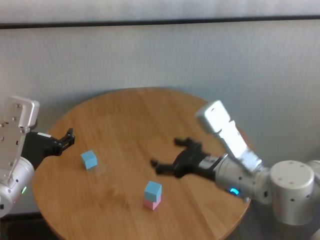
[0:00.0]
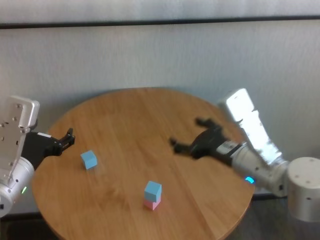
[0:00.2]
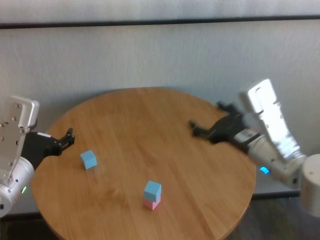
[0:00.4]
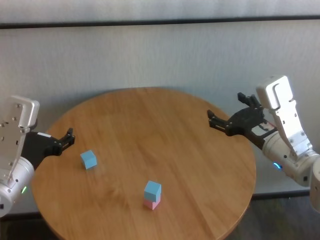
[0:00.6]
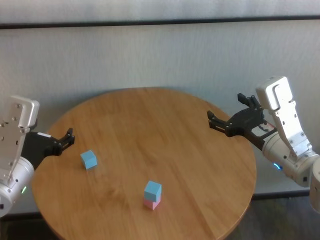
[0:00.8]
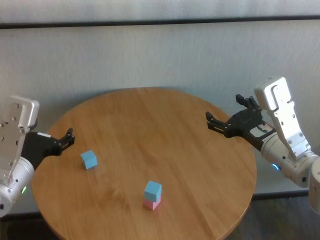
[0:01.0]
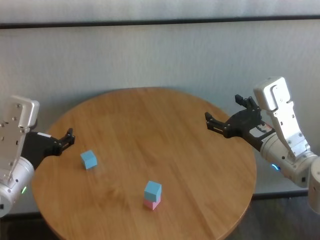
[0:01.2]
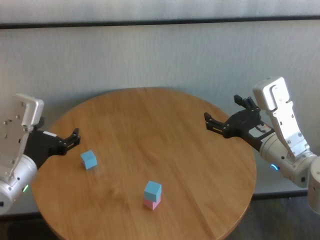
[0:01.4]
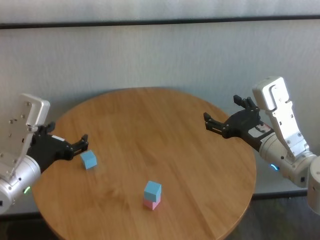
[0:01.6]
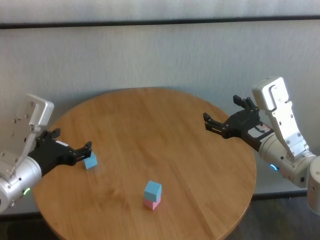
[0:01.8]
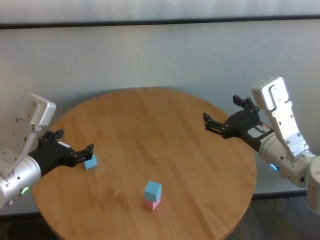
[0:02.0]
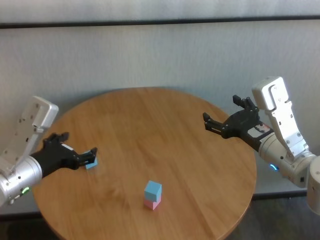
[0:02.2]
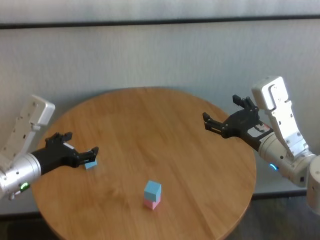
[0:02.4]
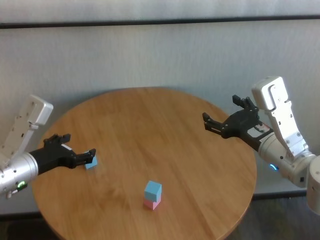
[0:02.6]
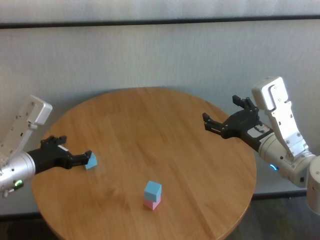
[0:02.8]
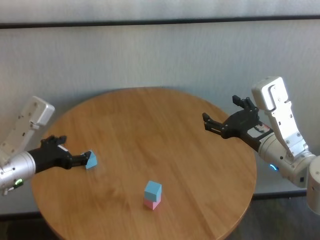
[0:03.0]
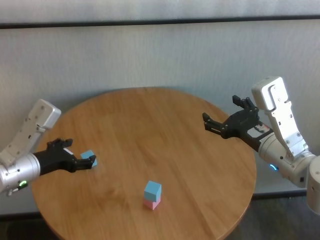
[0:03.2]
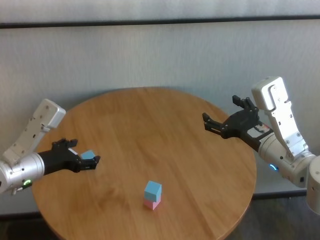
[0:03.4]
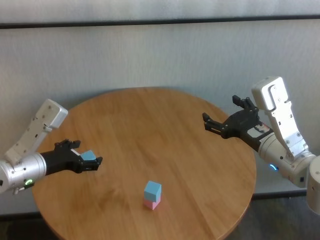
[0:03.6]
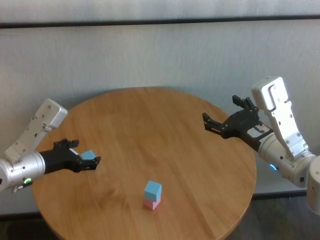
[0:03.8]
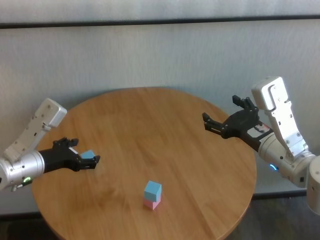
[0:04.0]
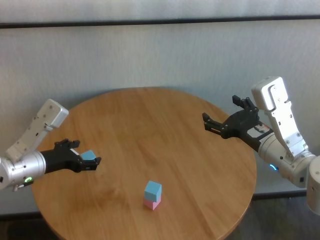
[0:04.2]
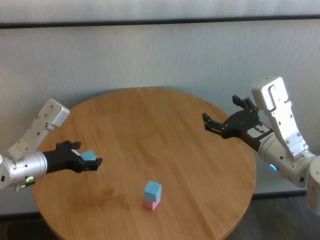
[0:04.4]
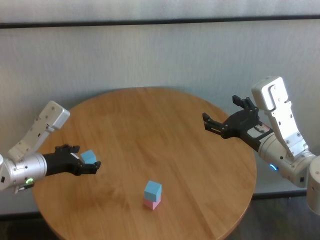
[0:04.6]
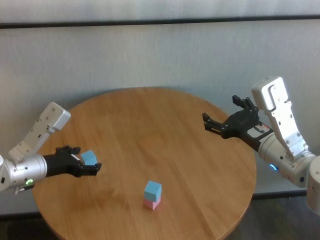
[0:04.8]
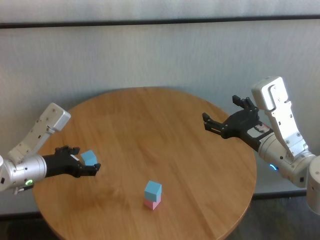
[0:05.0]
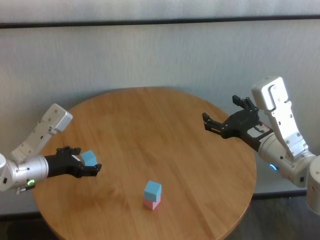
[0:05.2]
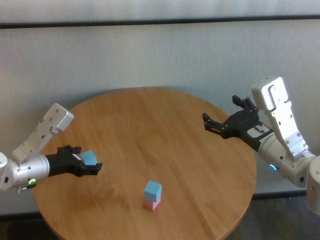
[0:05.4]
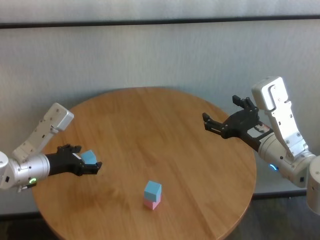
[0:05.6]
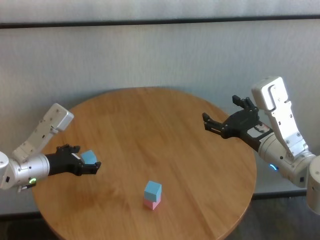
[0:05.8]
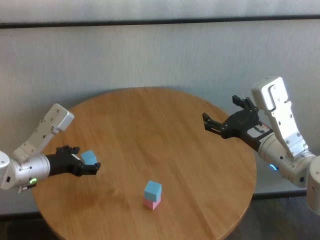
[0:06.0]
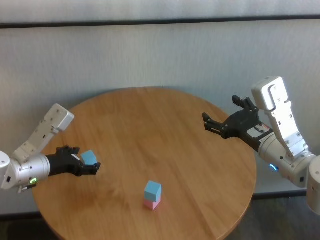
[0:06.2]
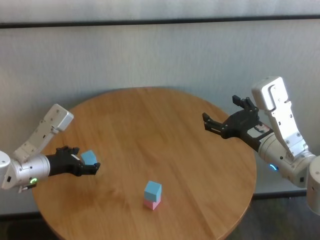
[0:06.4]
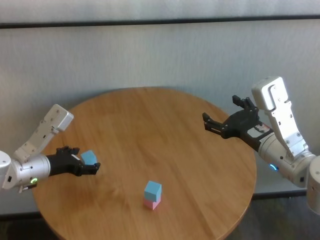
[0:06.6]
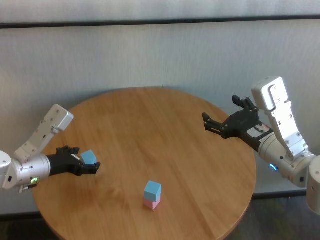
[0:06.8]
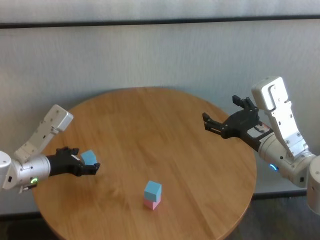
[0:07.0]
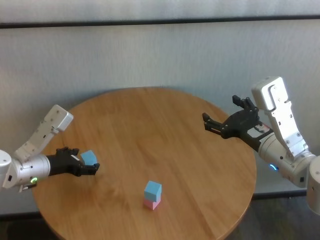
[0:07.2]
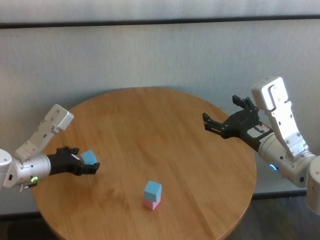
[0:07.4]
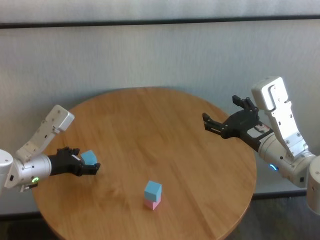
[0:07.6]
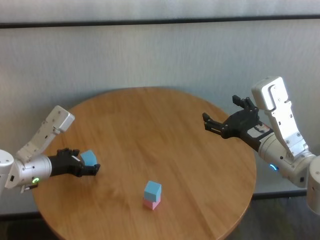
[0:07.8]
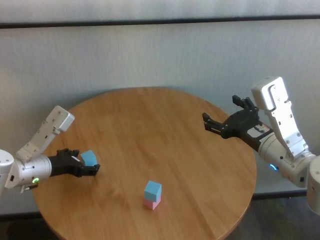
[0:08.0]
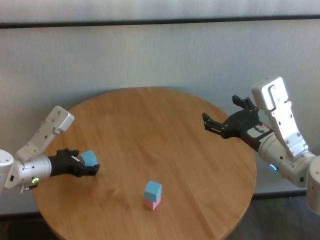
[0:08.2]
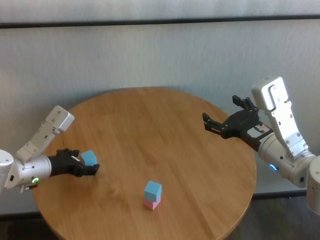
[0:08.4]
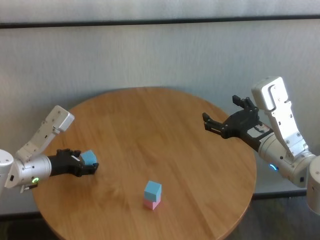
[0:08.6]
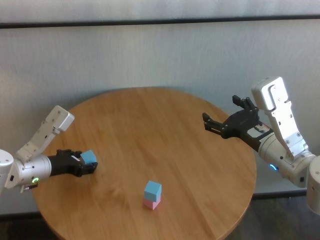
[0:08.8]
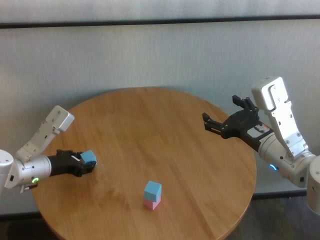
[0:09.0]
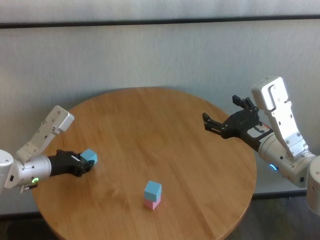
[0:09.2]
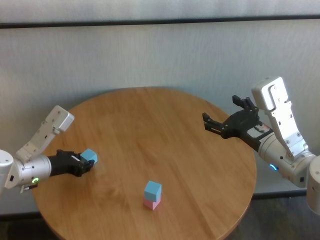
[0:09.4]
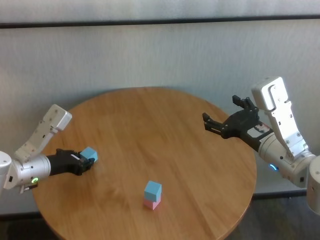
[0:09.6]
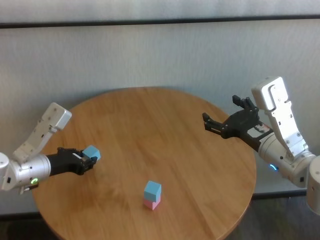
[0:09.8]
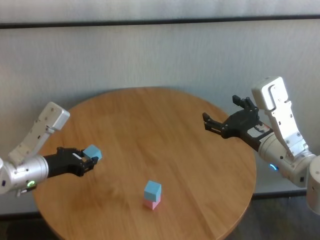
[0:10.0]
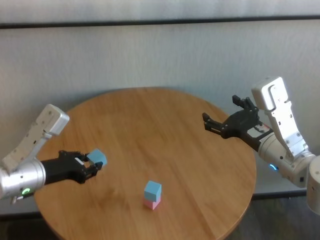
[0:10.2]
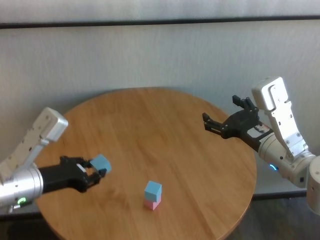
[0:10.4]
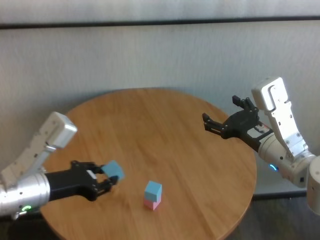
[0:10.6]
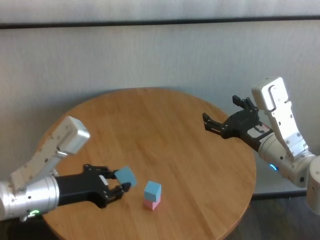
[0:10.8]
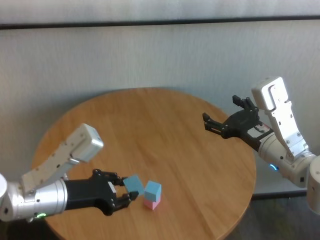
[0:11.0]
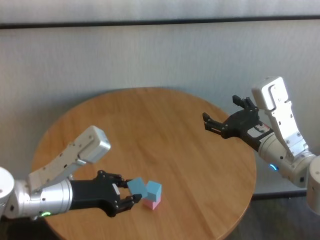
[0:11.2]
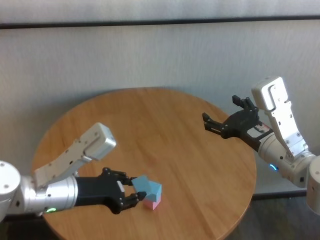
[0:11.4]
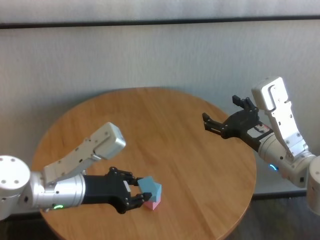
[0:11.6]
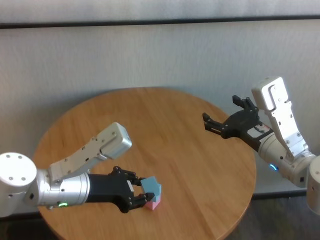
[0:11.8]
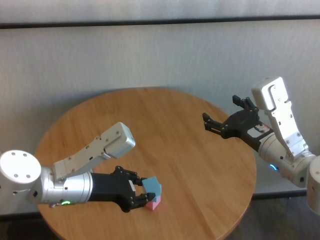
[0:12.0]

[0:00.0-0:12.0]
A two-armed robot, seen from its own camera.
Task of the whole recording: stack building blocks on the table.
Step, 0:00.0 to 0:09.0: Grasp the blue building block with left gripper.

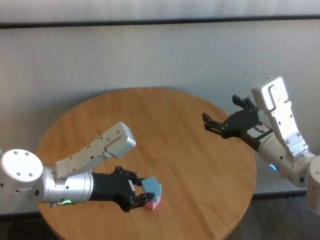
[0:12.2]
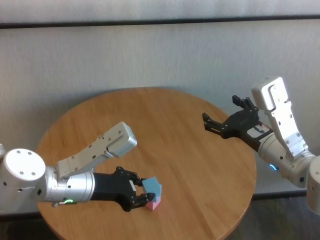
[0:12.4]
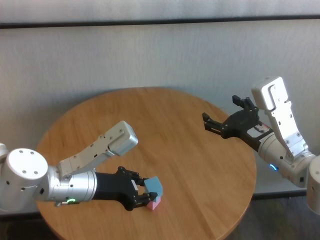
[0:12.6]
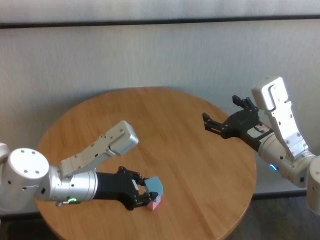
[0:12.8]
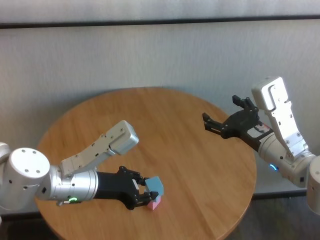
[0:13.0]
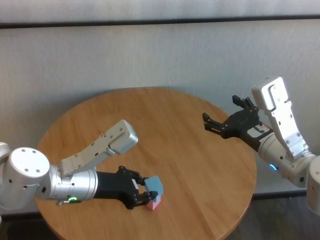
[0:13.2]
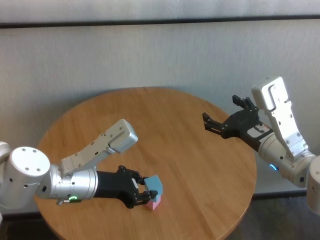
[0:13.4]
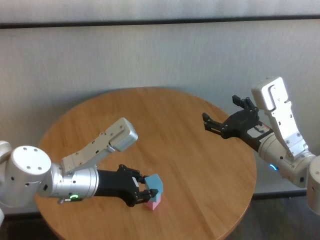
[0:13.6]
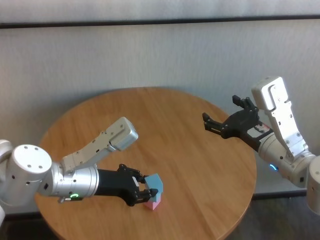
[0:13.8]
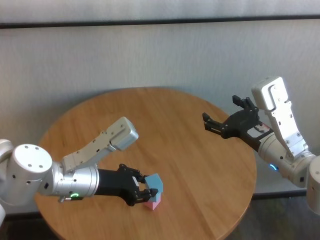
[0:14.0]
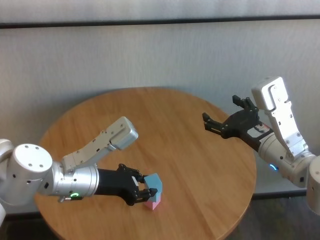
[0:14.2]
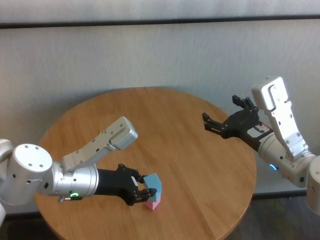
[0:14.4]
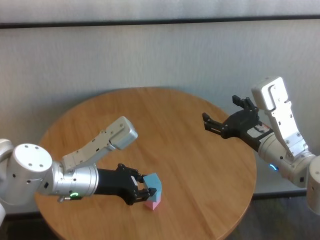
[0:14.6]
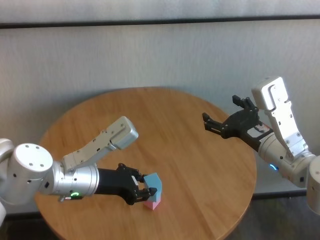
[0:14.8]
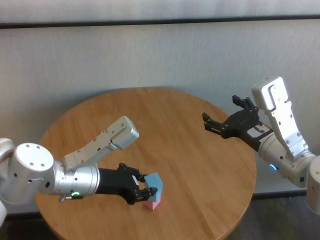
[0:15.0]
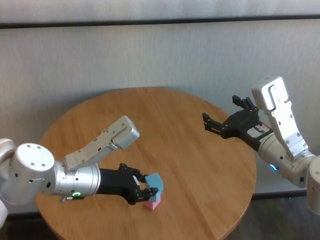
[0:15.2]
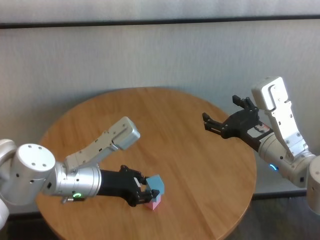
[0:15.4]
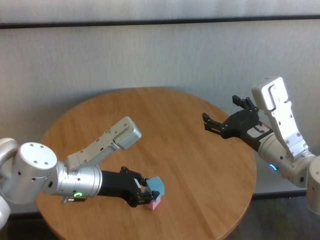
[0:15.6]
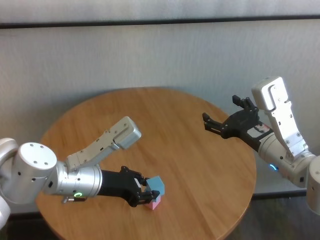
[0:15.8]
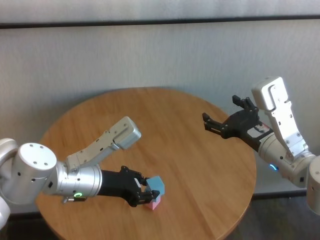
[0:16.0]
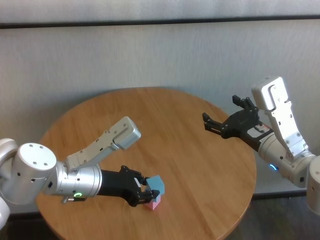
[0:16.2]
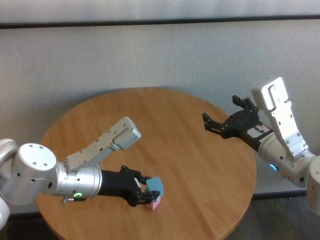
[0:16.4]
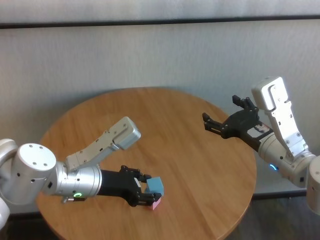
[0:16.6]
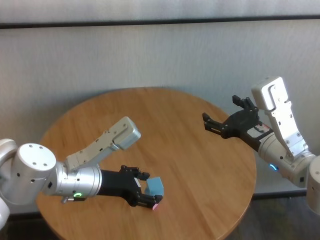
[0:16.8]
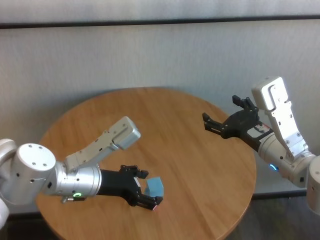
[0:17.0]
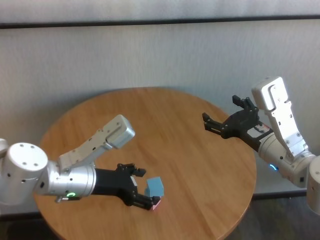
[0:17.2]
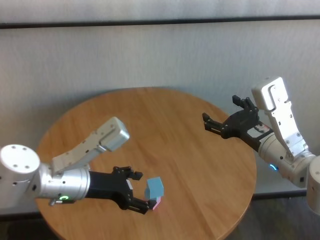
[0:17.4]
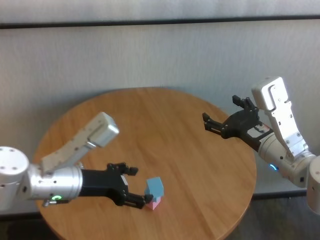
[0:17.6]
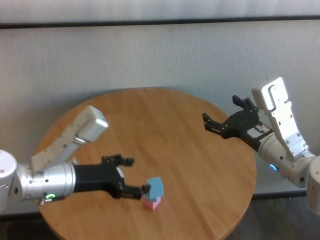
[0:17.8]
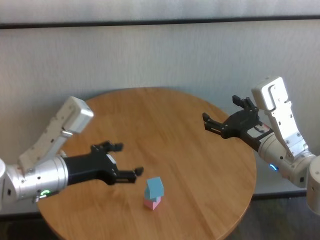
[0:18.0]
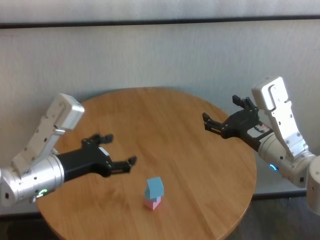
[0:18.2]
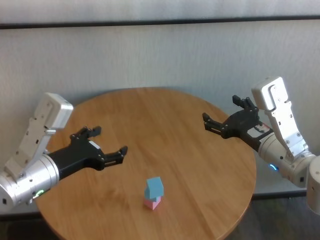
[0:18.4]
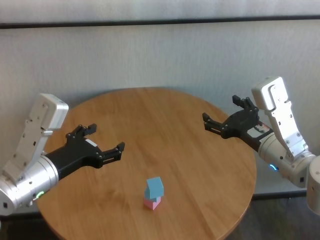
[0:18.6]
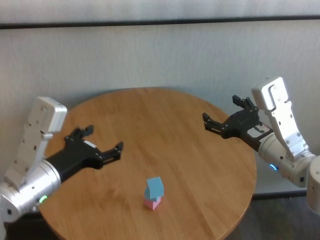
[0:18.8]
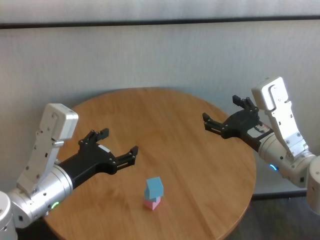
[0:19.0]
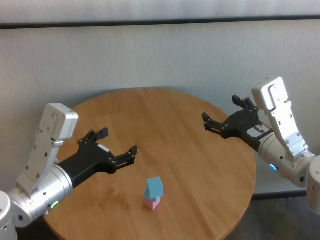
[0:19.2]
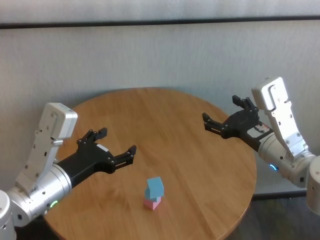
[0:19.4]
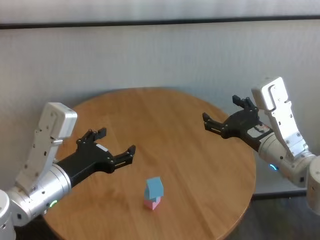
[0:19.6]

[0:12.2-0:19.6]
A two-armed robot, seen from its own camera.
Task of the whole recording: stack building blocks on the table.
Step, 0:12.2 to 0:16.6: Place the blue building block on the blue building blocks with left gripper.

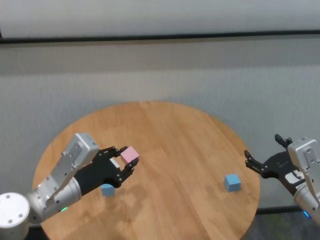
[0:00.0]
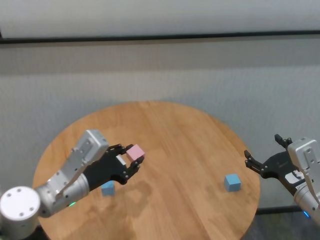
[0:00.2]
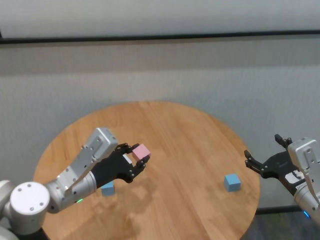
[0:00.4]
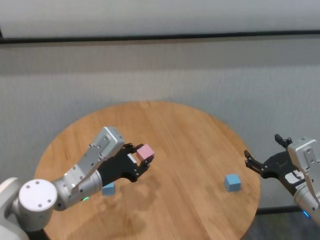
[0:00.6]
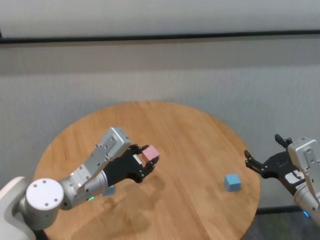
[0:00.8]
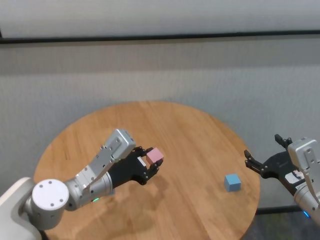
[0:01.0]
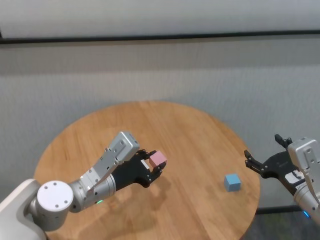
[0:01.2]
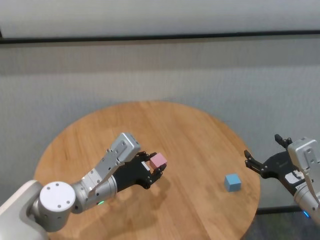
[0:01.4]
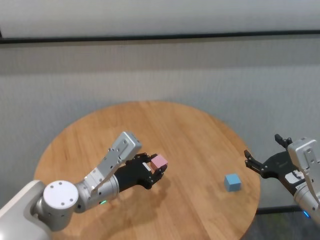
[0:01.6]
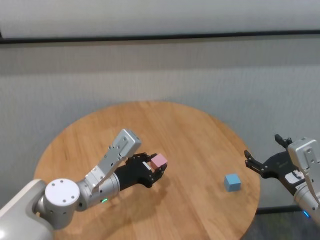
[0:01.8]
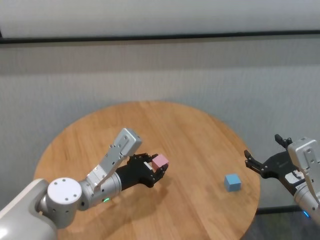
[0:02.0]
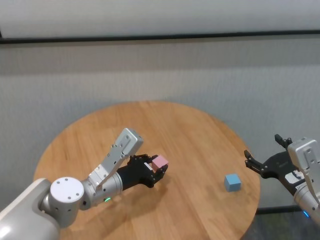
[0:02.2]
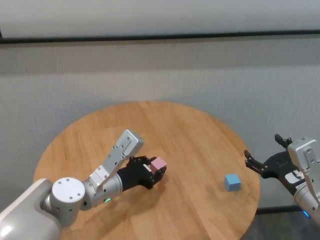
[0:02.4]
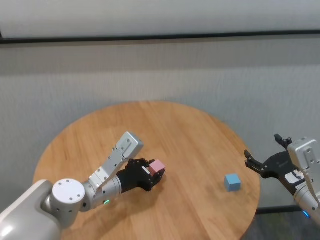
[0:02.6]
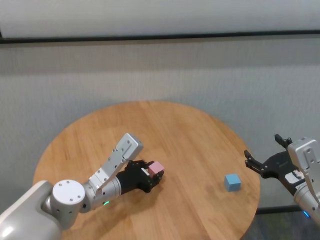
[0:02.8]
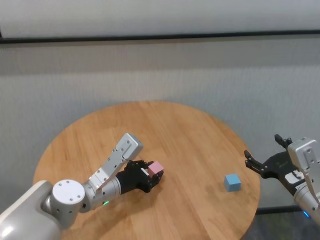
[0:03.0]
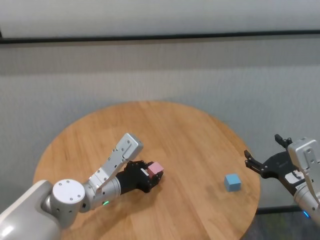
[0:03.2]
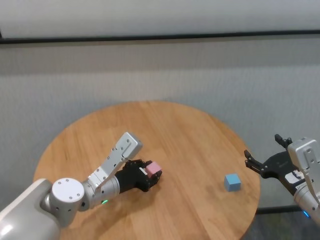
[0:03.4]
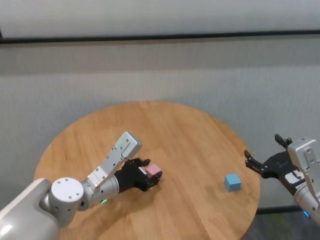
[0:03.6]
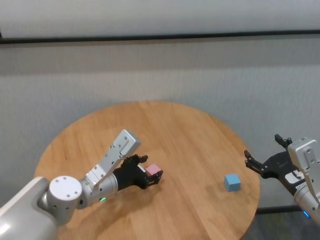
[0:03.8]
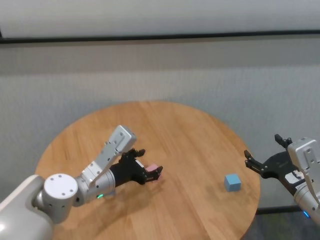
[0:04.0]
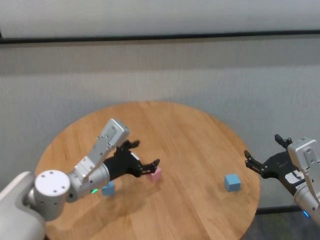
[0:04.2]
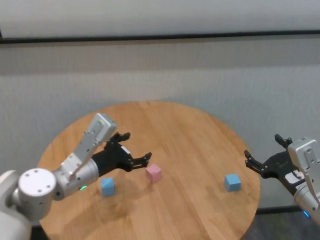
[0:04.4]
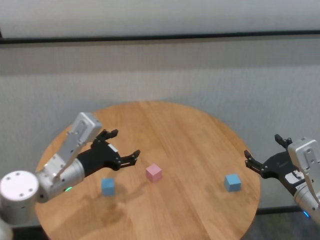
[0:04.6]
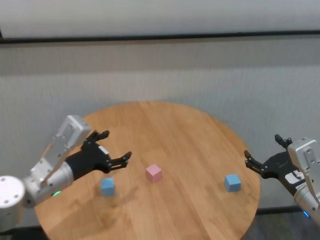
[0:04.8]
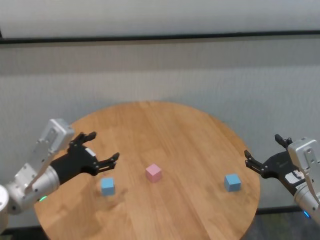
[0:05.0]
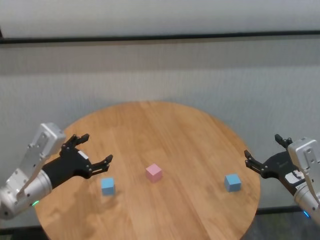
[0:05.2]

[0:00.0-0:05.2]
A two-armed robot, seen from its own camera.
Task of the whole recording: stack building blocks on the table.
Step, 0:00.0 to 0:03.6: Place the pink building block in the center of table with left gripper.
